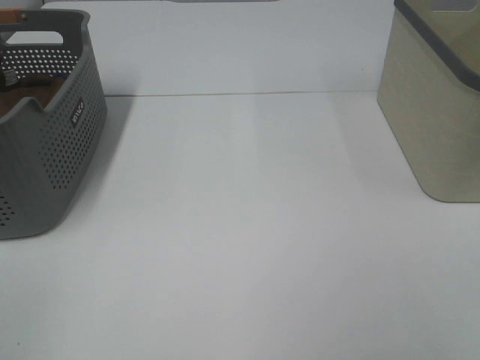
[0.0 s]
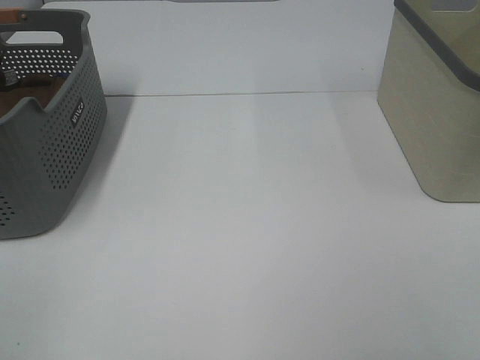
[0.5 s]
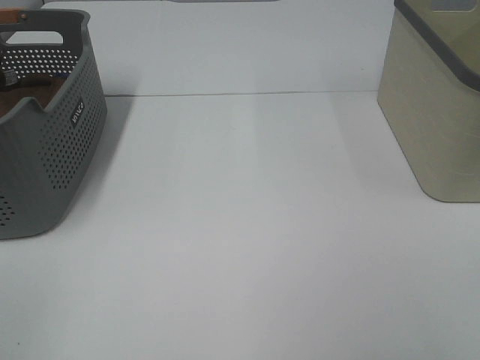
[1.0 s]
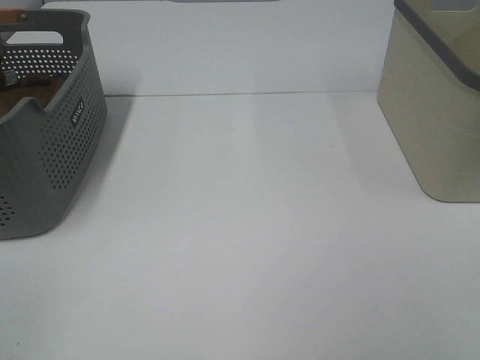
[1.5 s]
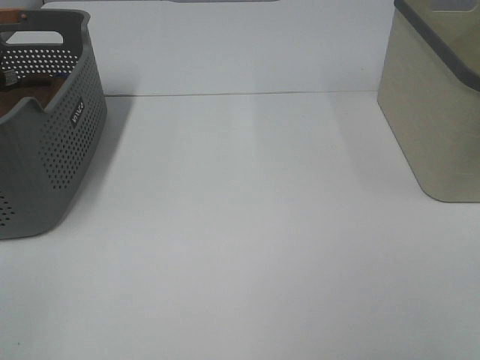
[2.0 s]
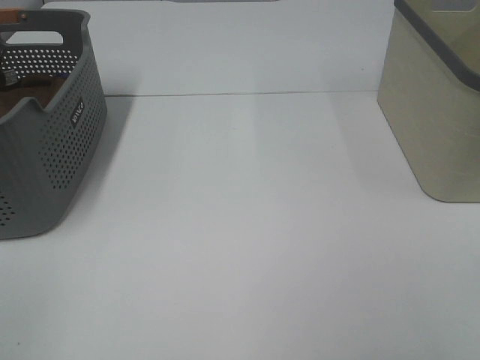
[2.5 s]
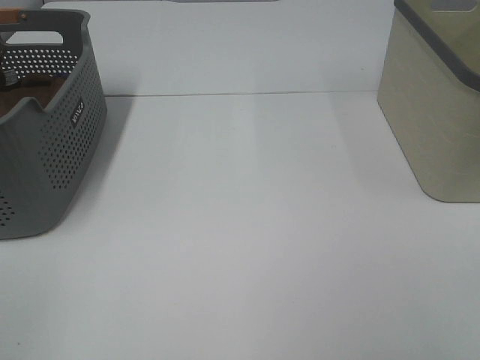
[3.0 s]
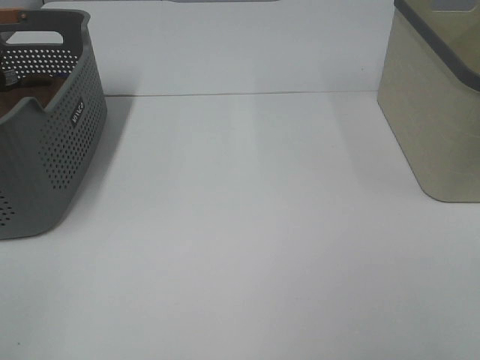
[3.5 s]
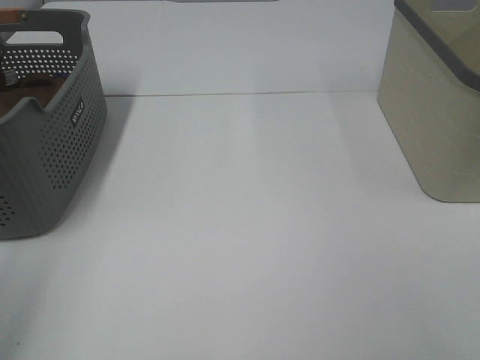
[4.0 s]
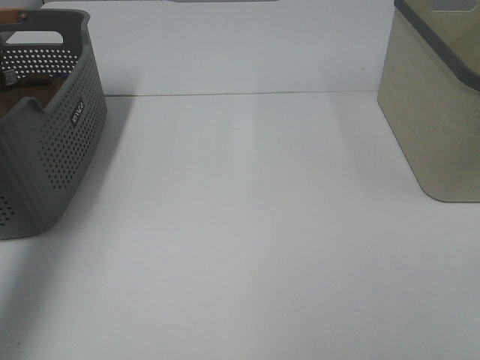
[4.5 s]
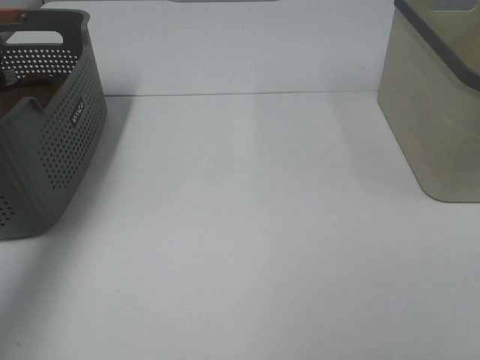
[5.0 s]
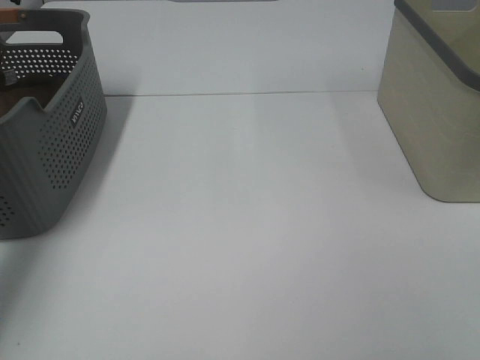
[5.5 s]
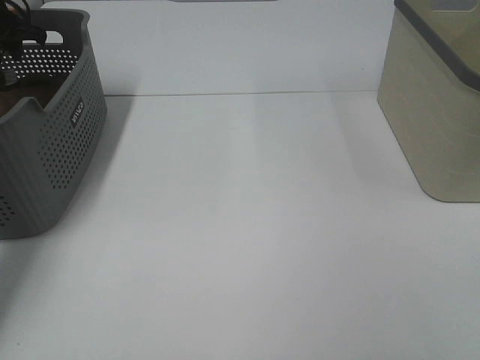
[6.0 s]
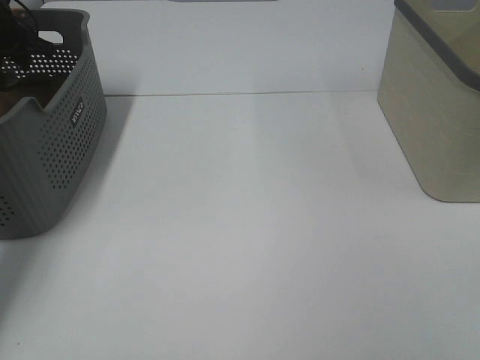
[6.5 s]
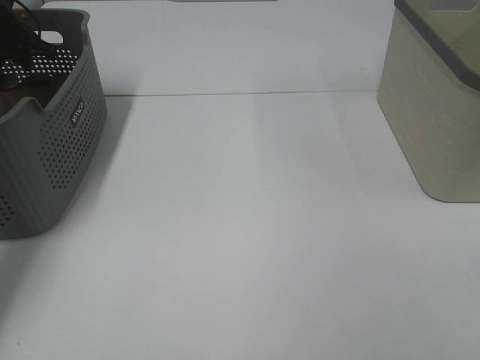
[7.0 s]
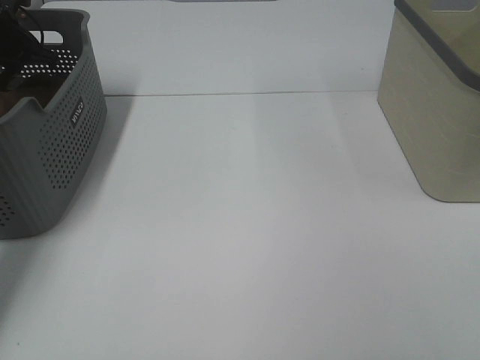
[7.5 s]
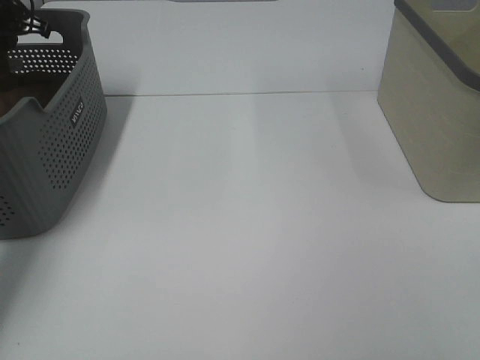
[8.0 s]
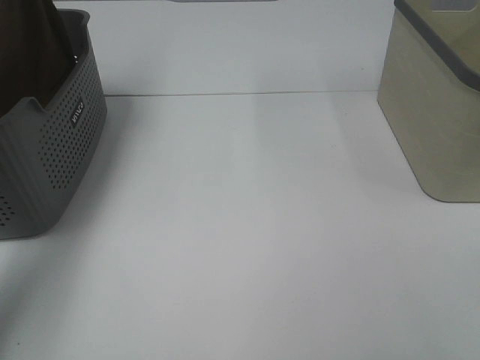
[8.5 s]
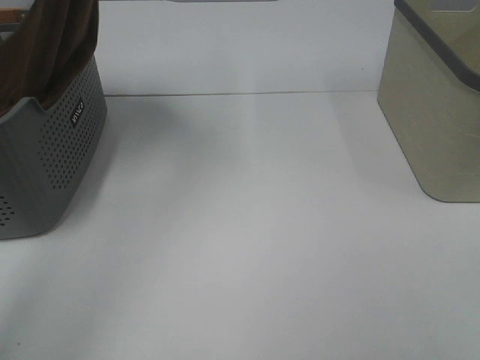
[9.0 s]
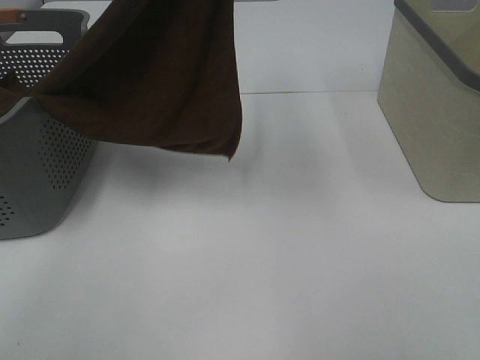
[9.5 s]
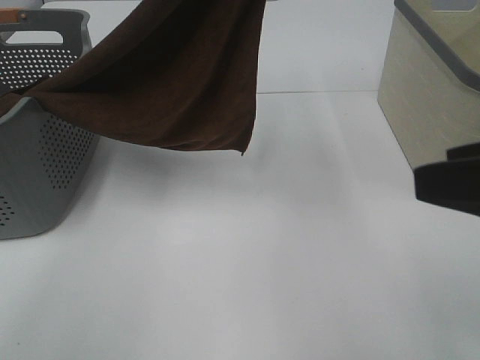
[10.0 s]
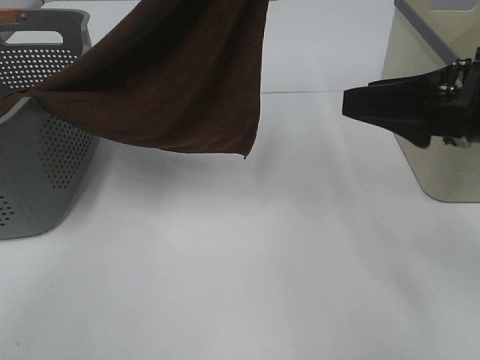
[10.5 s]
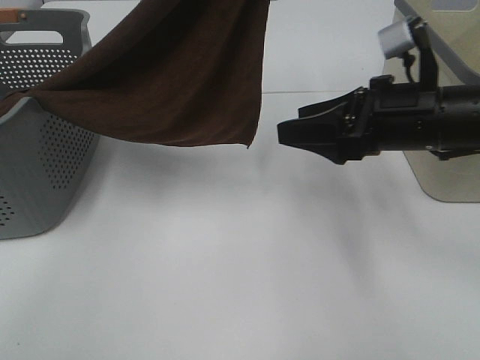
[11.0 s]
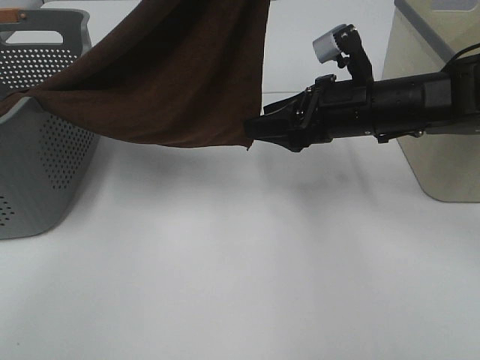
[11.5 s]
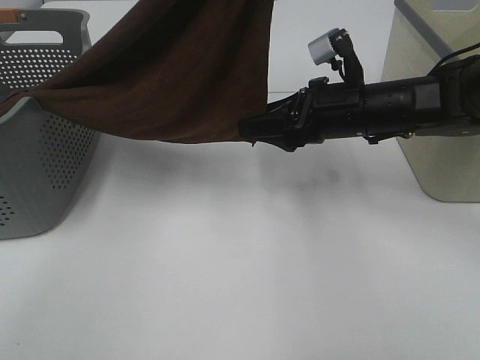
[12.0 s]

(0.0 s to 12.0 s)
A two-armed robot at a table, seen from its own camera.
Task of the whole recording: Remove the towel and place it.
0.0 s - 2.0 s: Neither gripper changes place.
4.0 s - 6.0 s: The left gripper travels forward by about 40 cm.
8.0 s - 10.0 s: The right gripper is displaced forward and to the left by about 15 cm; the left gripper shifts about 50 cm to the right, backward and upward.
10.0 s - 12.0 s: The right gripper is displaced forward, downward and to the left by approximately 25 cm.

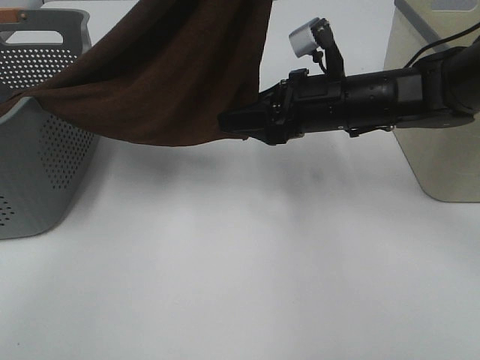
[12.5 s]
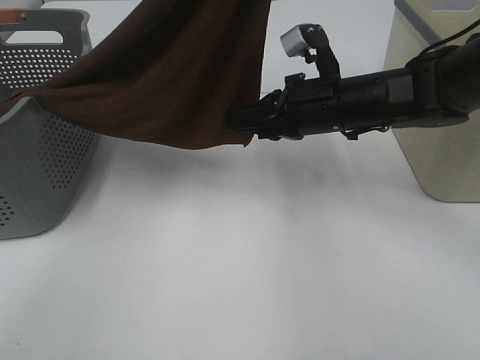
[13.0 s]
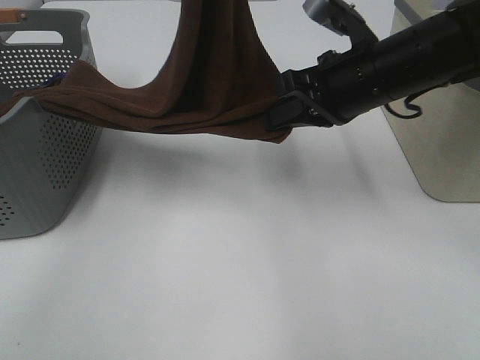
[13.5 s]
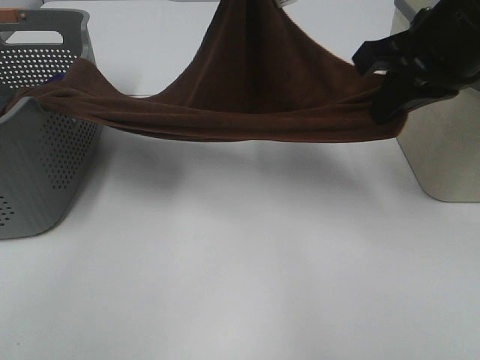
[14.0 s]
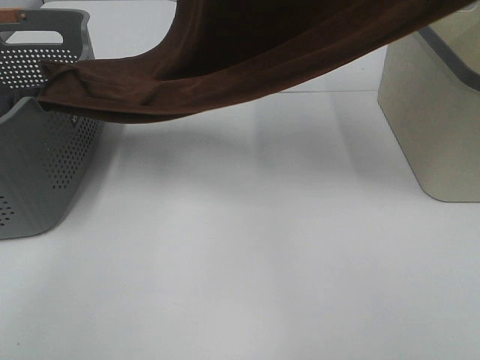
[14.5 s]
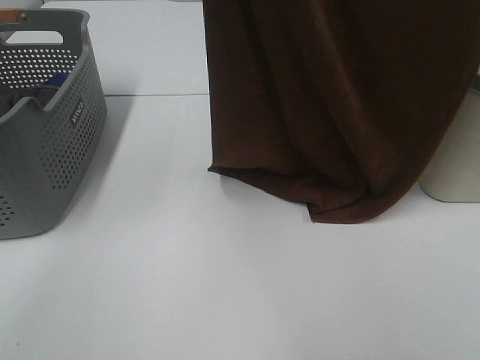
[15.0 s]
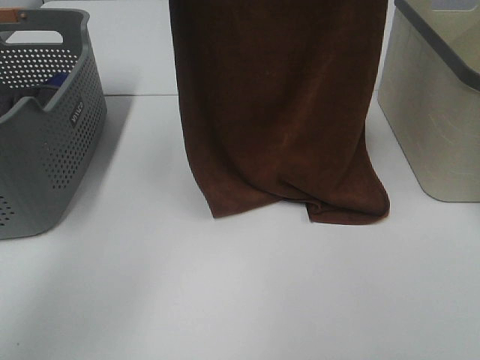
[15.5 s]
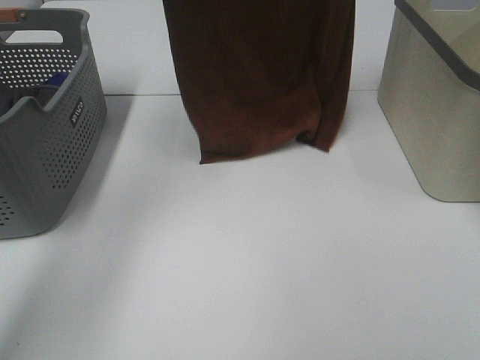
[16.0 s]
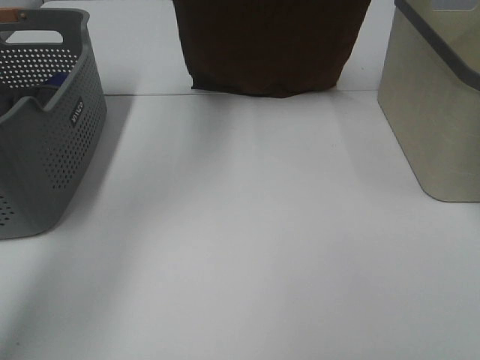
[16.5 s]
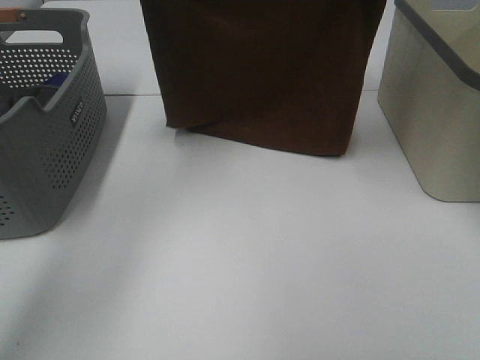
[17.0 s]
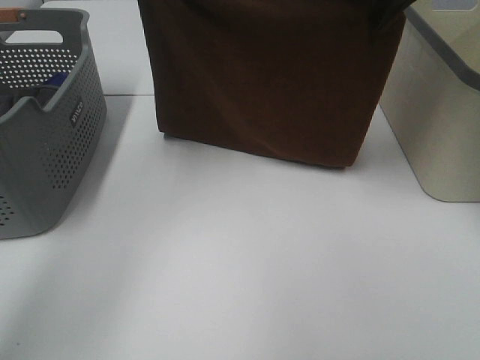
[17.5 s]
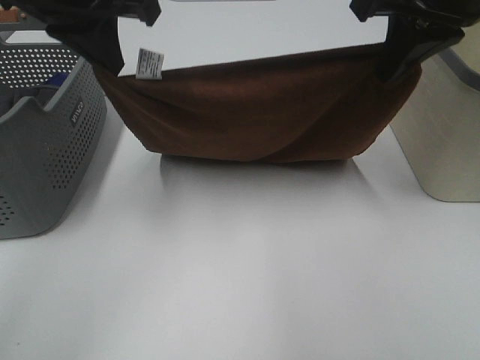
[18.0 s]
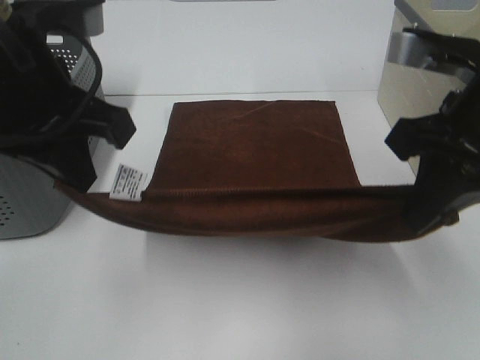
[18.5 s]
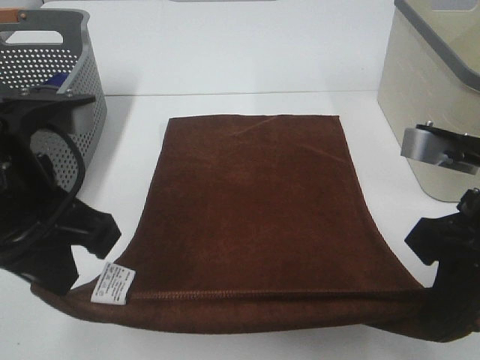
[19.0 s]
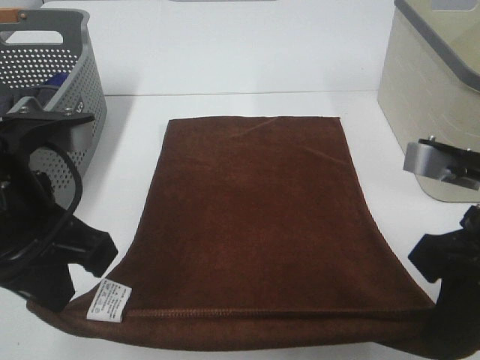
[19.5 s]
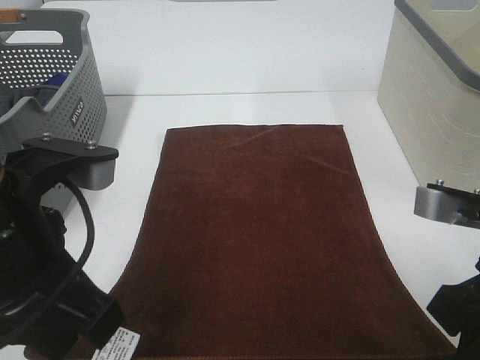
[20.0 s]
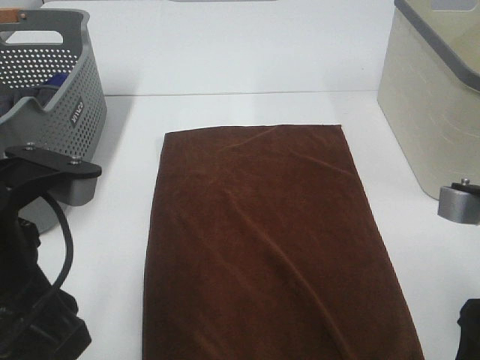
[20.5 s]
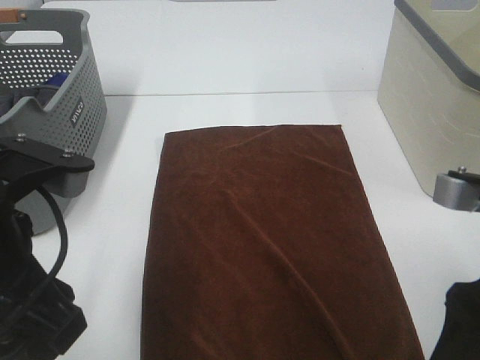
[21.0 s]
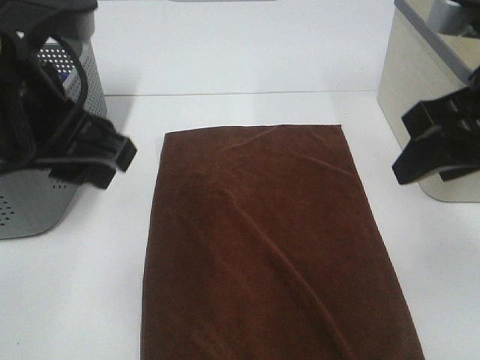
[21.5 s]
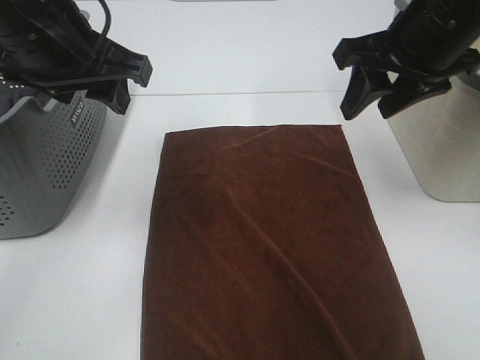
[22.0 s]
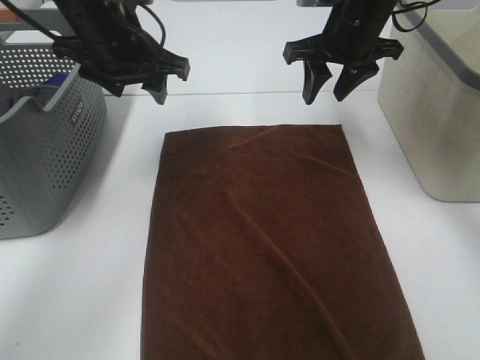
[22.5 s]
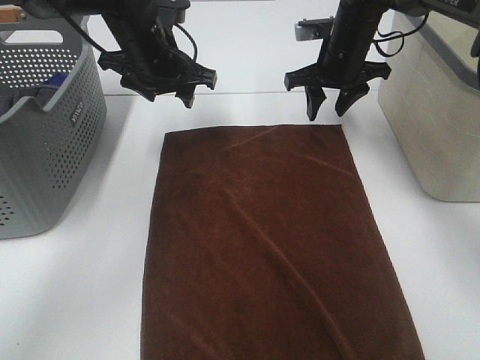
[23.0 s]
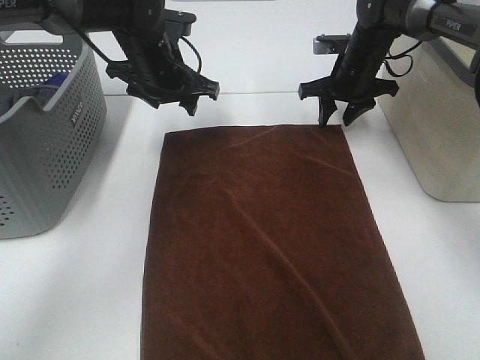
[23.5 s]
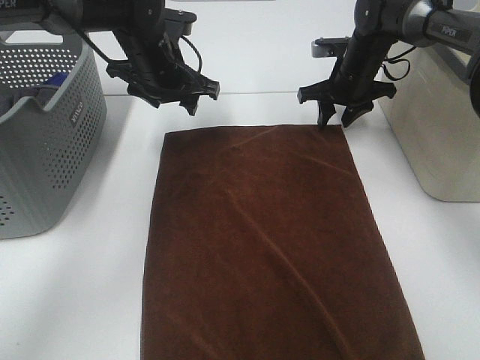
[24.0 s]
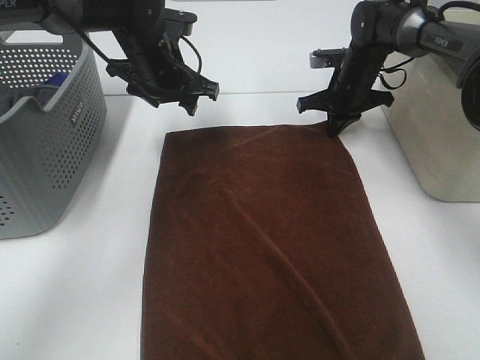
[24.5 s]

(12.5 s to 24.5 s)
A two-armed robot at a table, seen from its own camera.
Task of the whole recording: Remove the towel and place it.
Step, 13.0 s - 16.0 s: Left hand: spread the brown towel flat on the table.
Step, 13.0 s - 16.0 s: Right hand: spread the brown towel flat on the table.
Step, 16.5 s - 23.5 s: Left hand:adjust the brown towel.
Step, 16.5 s - 23.5 s: Right hand:adjust the brown towel.
12.5 s - 14.5 s: The left gripper travels downward and back again, approximately 10 cm each way. The right gripper travels upward by about 25 cm, and closes up.
14.5 s - 16.5 s: The right gripper travels forward and upward by roughly 15 cm. The left gripper heads forward and to the left, covering some 15 cm.
16.5 s - 18.5 s: The left gripper travels backward and downward by some 30 cm, while the right gripper goes about 30 cm downward and backward.
18.5 s - 20.5 s: The two grippers go roughly 10 cm backward and downward. The left gripper opens its fingers. The right gripper opens.
20.5 s - 22.5 s: The two grippers go some 30 cm forward.
22.5 s - 24.5 s: The right gripper travels downward and forward by approximately 15 cm, and closes; the left gripper heads downward and forward, covering about 10 cm.

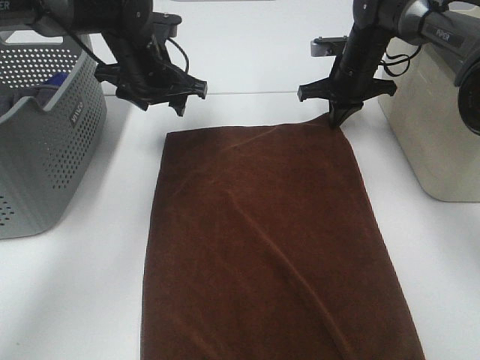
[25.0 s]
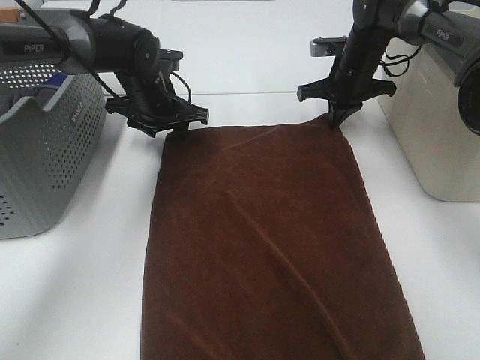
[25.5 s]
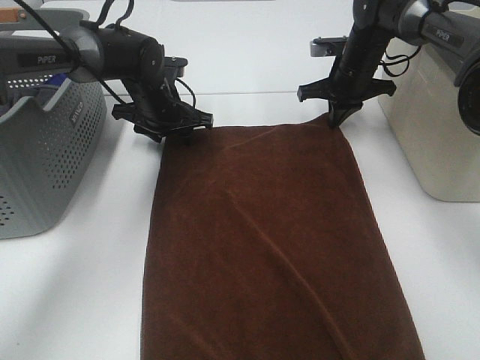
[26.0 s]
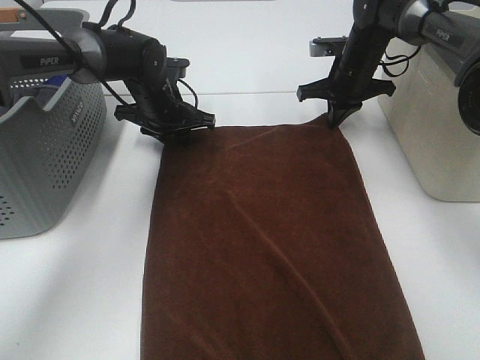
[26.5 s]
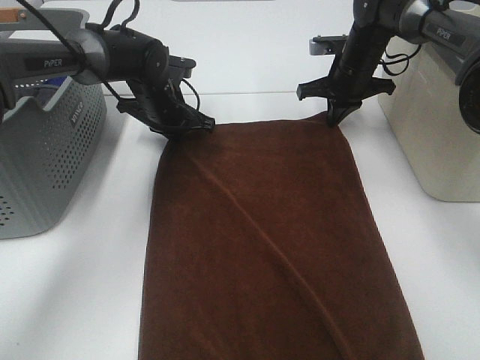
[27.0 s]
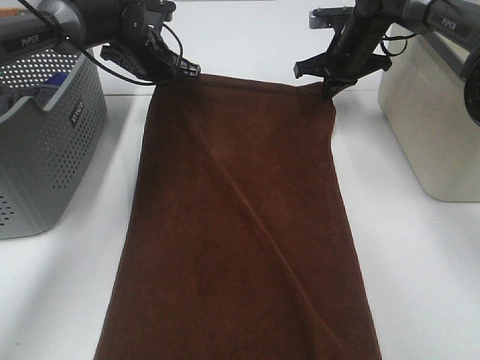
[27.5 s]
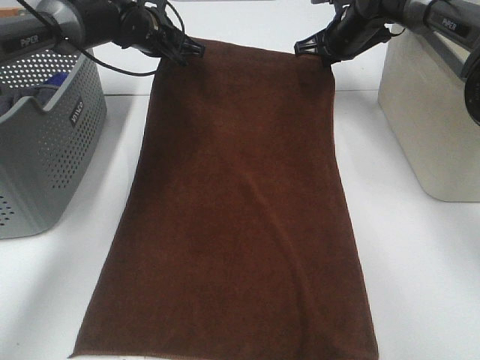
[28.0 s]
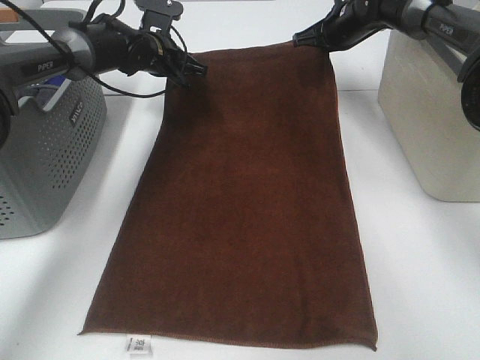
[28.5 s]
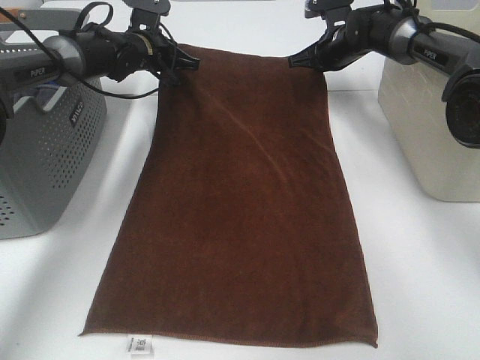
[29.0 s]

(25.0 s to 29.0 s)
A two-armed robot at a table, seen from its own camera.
Task of the whole recording: Remove the towel and place it.
25.0 s - 27.0 s: The left gripper goes some 5 cm downward, and closes up.
27.0 s - 29.0 s: Both grippers travel together forward, roughly 5 cm. The left gripper opens.
